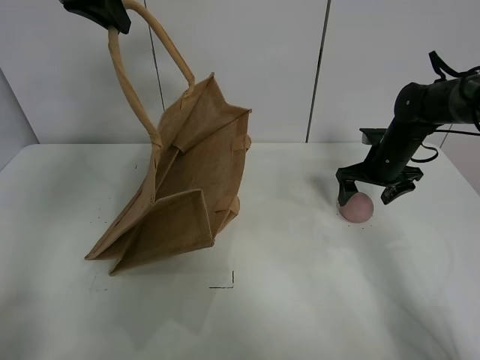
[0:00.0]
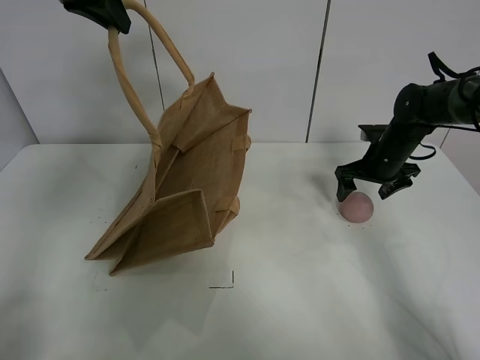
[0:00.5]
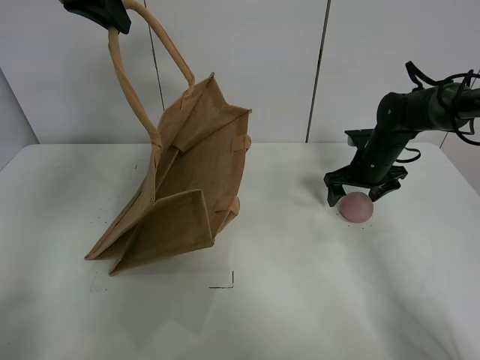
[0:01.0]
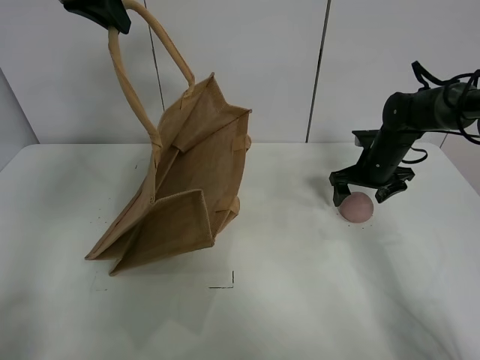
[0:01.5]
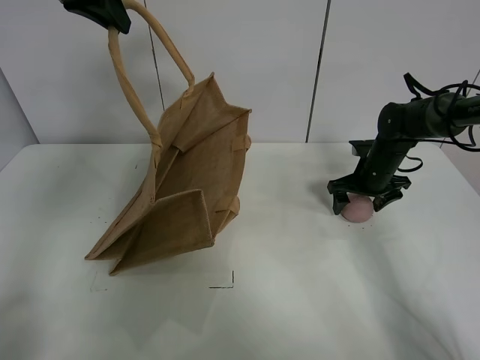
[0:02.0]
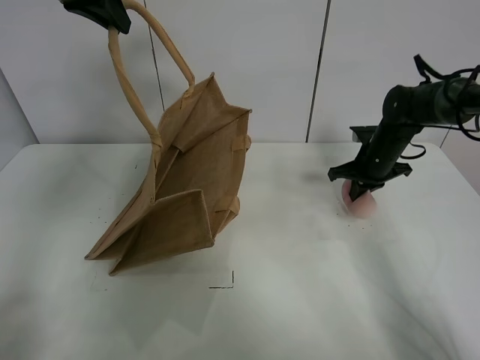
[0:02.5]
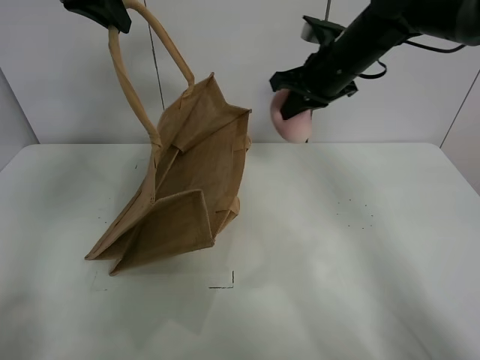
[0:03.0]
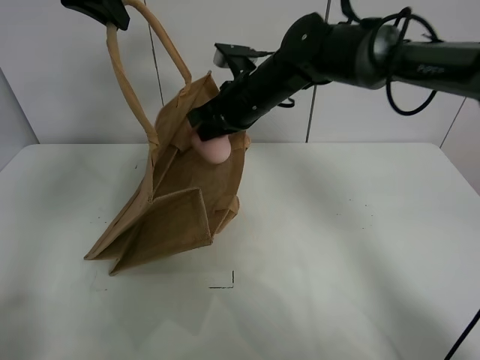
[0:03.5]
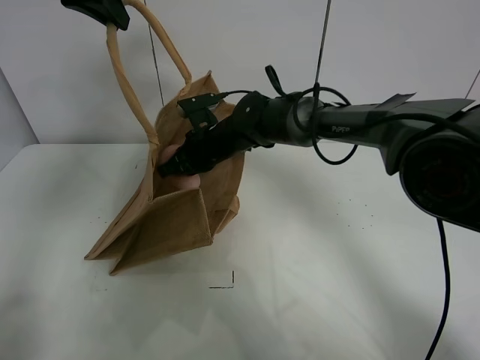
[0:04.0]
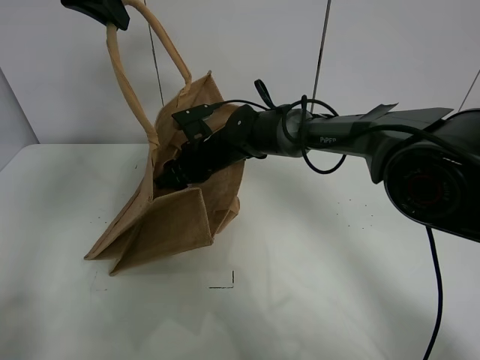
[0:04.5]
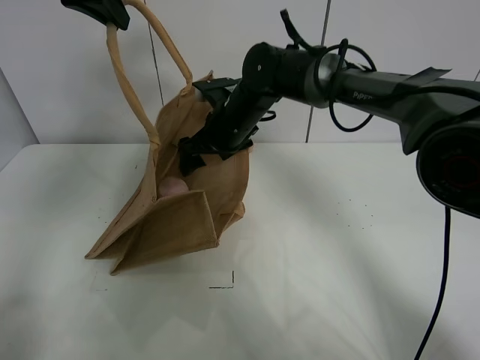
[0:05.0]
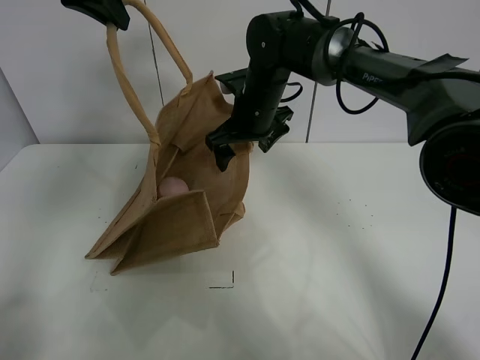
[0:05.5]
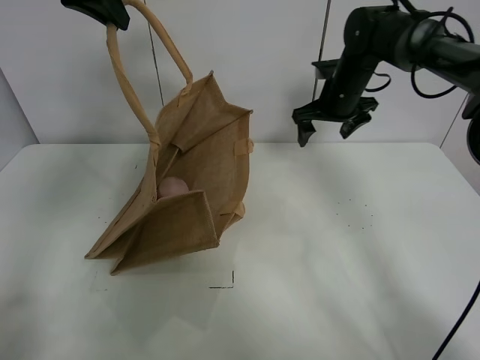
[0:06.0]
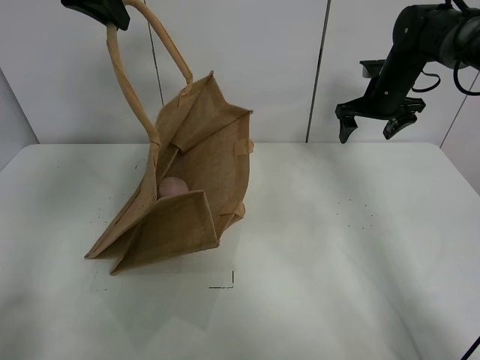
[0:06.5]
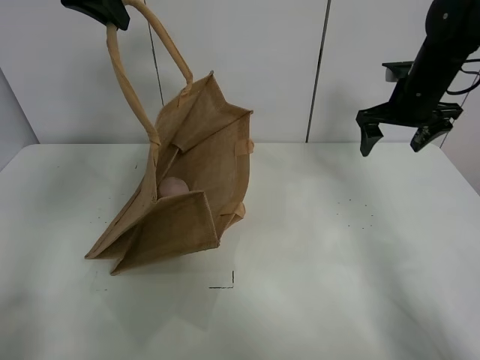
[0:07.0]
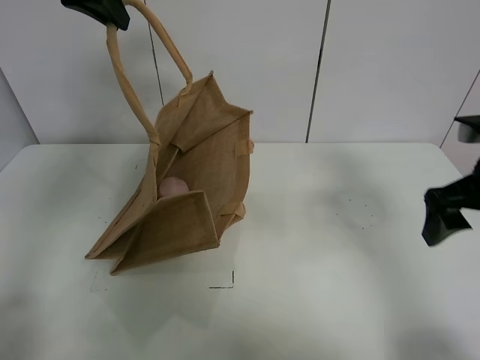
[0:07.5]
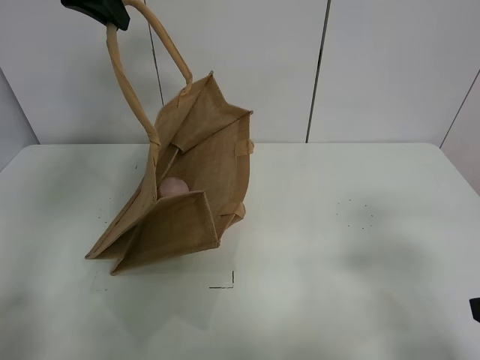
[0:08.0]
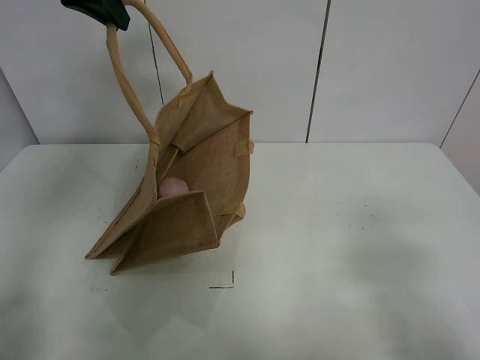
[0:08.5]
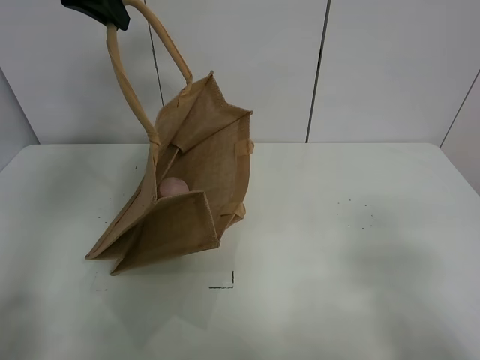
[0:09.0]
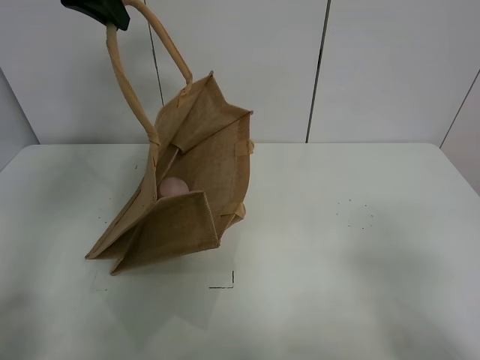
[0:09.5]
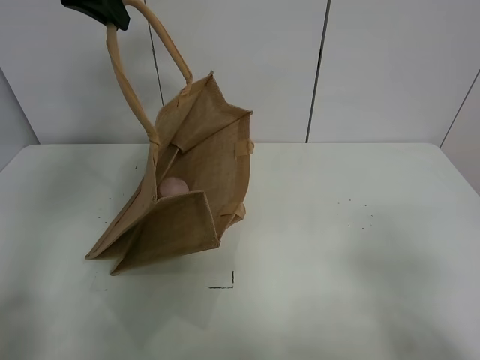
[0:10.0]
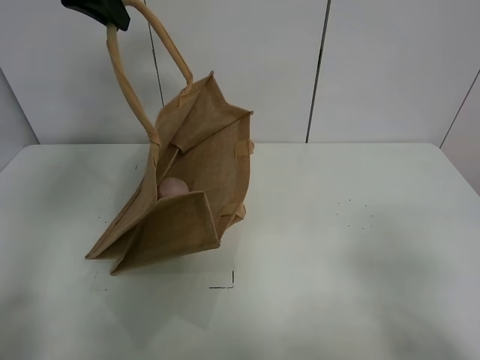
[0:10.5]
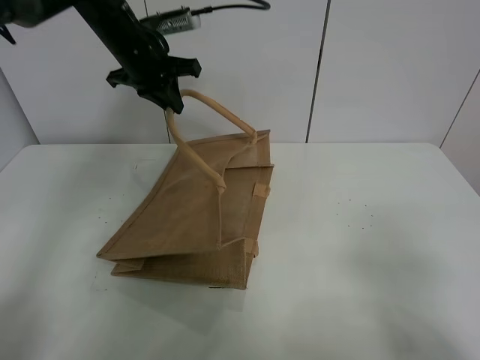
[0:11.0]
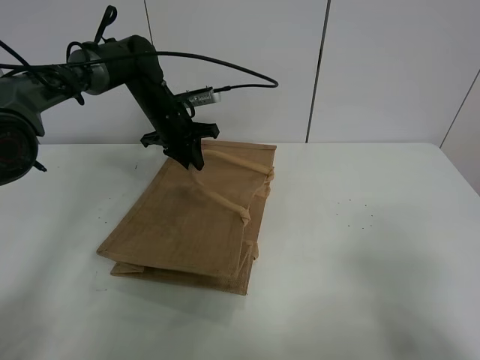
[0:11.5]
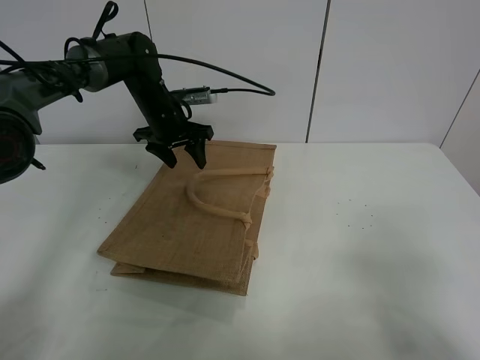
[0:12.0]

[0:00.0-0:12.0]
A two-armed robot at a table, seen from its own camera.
Task of the whole recording: open the brown linen bag and put the peach in the bag.
Step, 0:00.0 to 0:02.0: Grasp the peach with right gripper.
Step, 0:02.5 to 0:05.5: Place the peach in the handbag with right gripper.
0:00.0 to 0:02.0: The grippers make only small movements.
0:02.0 to 0:04.0: The right gripper goes about 30 cm to the left, and closes up.
0:04.0 to 0:06.0: The right gripper shifts about 20 cm to the right, and opens up.
0:06.0 to 0:08.0: The right gripper travels backward by some 40 cm.
0:10.0 to 0:12.0: The left gripper is displaced downward and forward by some 25 cm, and opens.

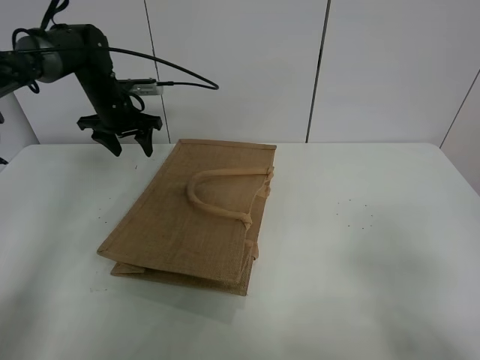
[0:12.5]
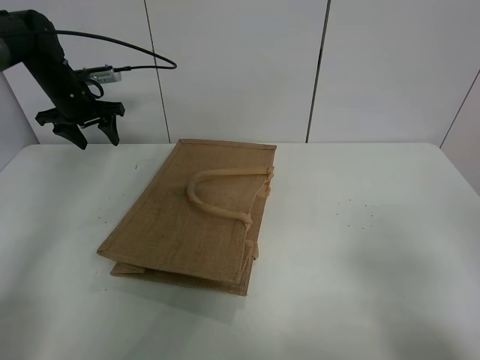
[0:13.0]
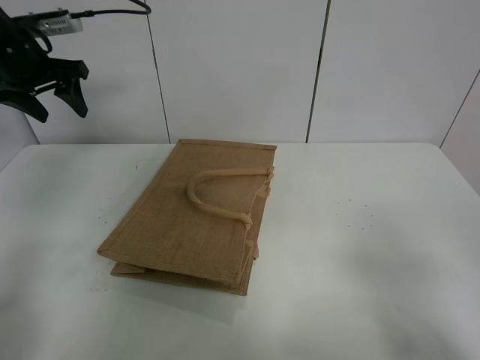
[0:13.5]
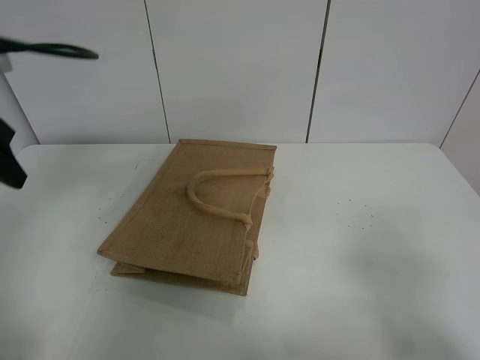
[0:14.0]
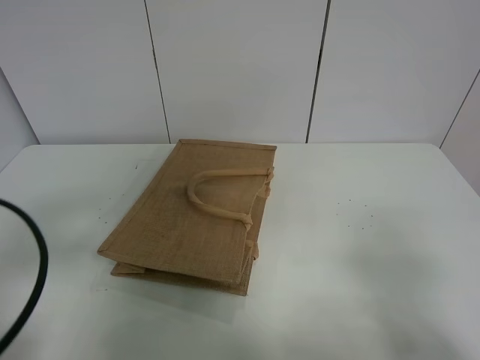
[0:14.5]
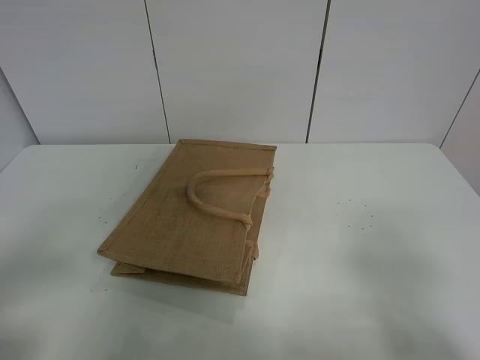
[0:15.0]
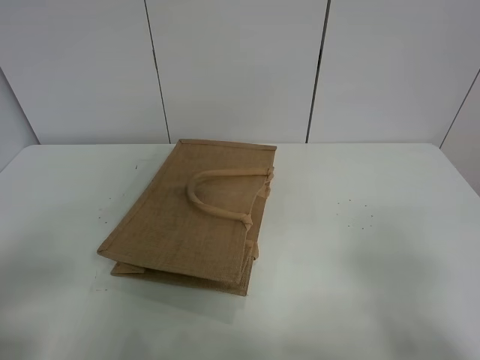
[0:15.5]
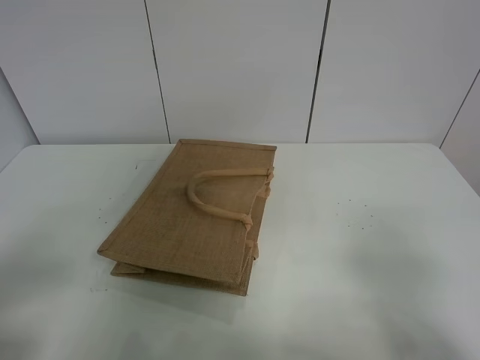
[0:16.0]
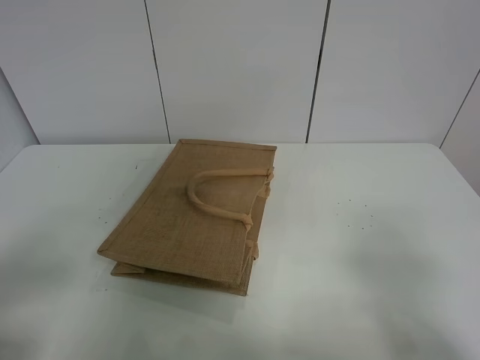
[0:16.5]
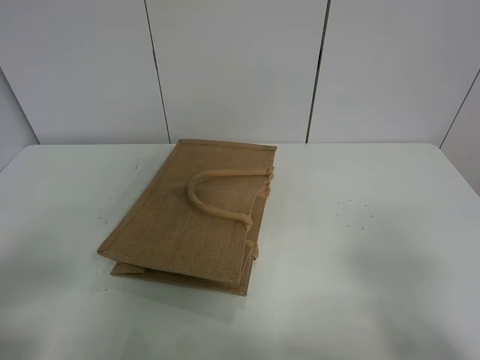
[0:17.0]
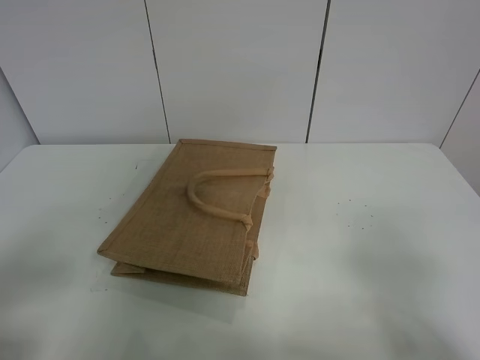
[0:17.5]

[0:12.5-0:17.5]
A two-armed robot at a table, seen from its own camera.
Task of the whole recording: open the brown linen bag and put the peach in the bag.
0:12.5 to 0:15.0: The left gripper moves backward, roughly 50 cm.
